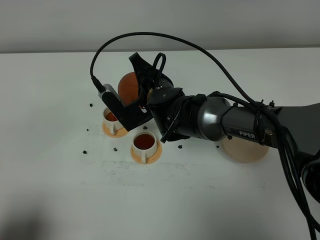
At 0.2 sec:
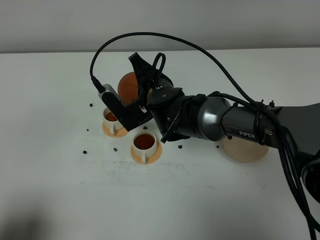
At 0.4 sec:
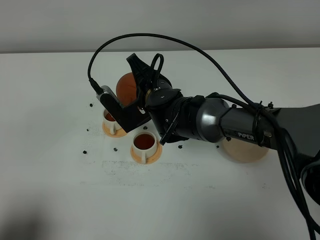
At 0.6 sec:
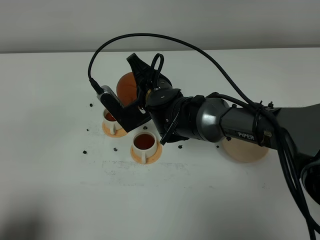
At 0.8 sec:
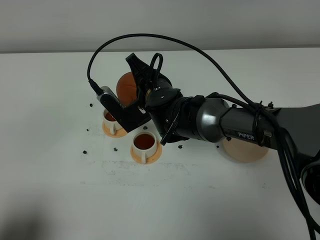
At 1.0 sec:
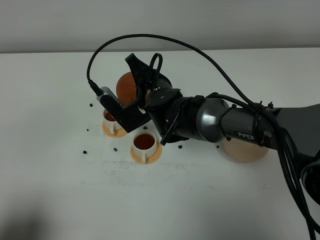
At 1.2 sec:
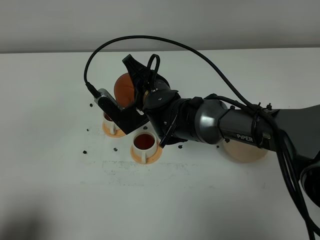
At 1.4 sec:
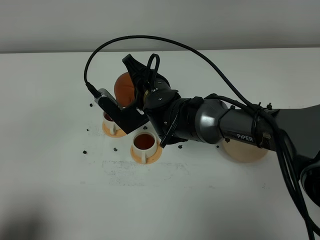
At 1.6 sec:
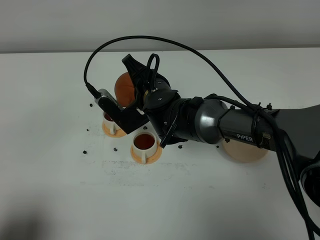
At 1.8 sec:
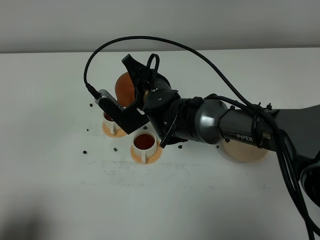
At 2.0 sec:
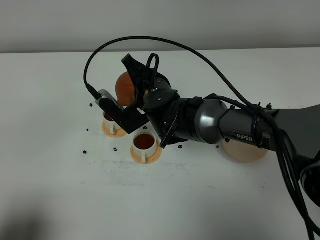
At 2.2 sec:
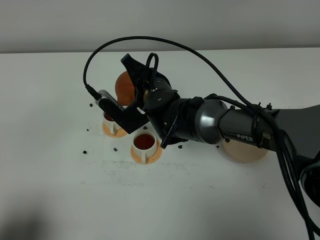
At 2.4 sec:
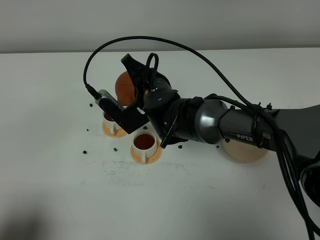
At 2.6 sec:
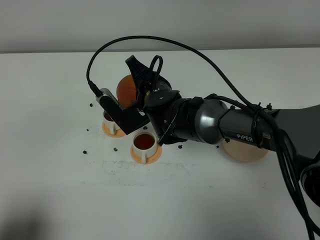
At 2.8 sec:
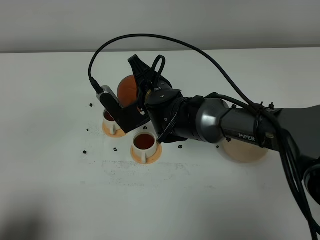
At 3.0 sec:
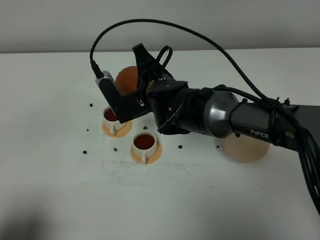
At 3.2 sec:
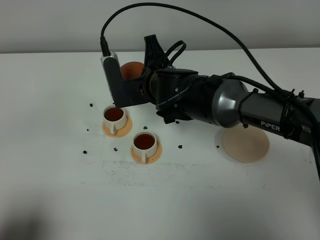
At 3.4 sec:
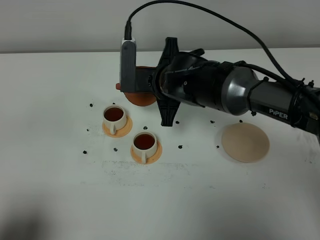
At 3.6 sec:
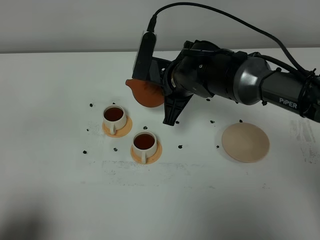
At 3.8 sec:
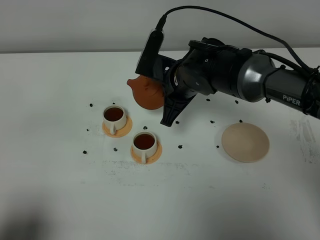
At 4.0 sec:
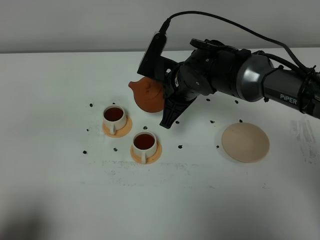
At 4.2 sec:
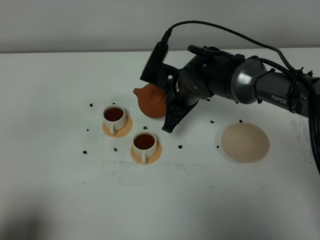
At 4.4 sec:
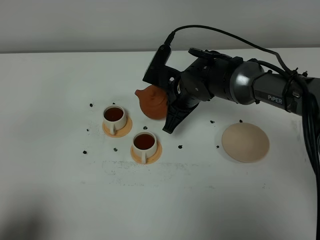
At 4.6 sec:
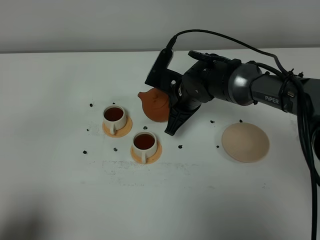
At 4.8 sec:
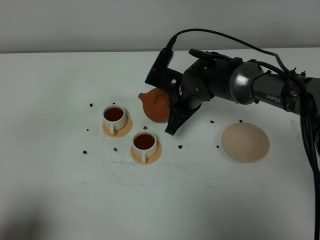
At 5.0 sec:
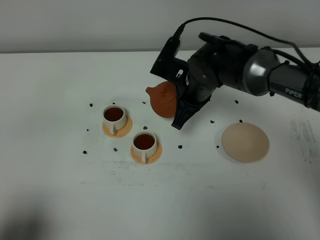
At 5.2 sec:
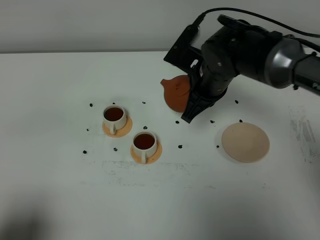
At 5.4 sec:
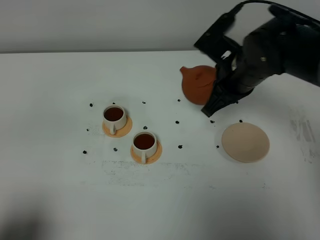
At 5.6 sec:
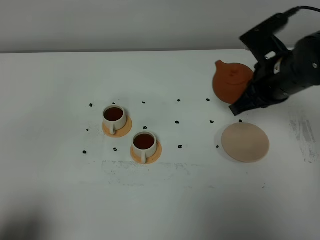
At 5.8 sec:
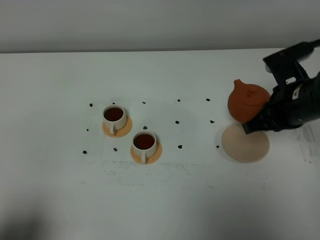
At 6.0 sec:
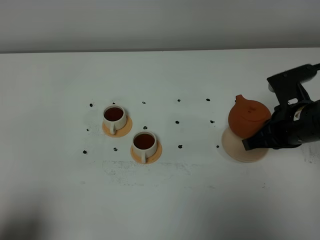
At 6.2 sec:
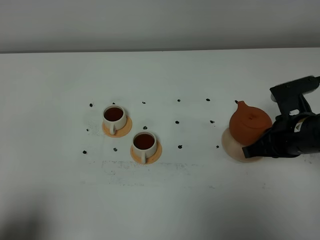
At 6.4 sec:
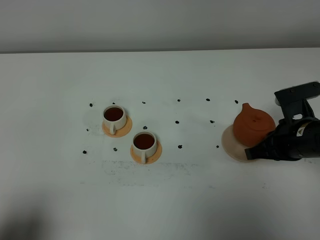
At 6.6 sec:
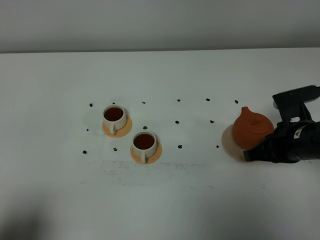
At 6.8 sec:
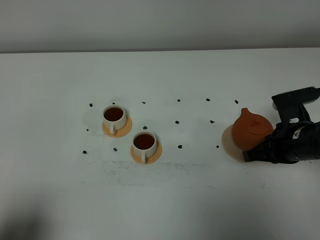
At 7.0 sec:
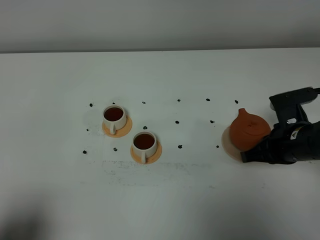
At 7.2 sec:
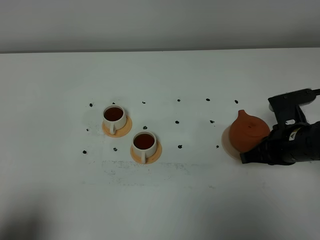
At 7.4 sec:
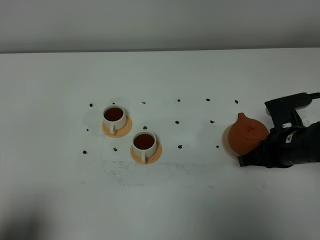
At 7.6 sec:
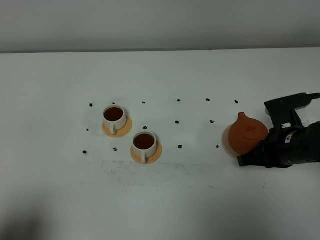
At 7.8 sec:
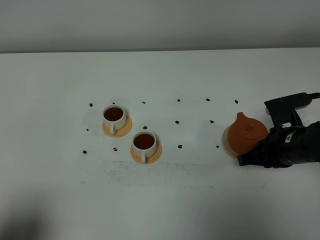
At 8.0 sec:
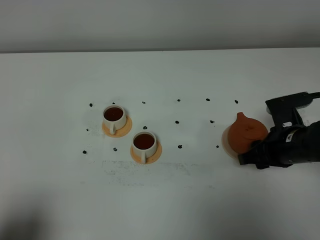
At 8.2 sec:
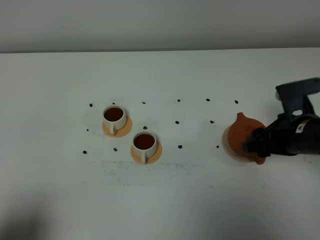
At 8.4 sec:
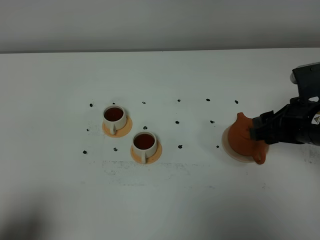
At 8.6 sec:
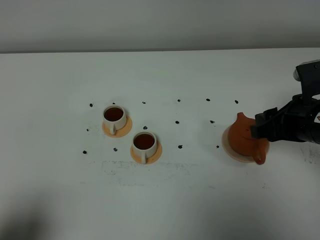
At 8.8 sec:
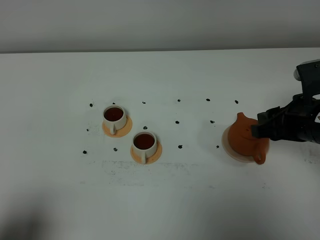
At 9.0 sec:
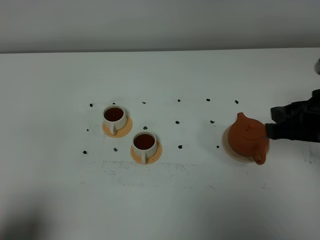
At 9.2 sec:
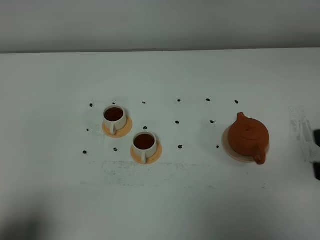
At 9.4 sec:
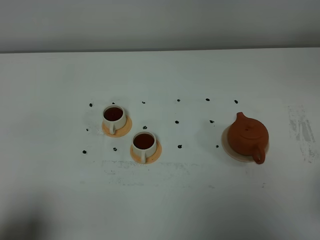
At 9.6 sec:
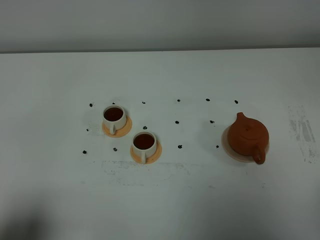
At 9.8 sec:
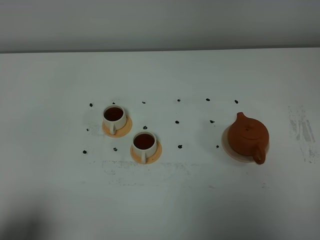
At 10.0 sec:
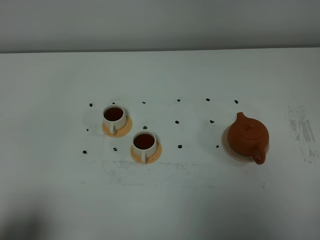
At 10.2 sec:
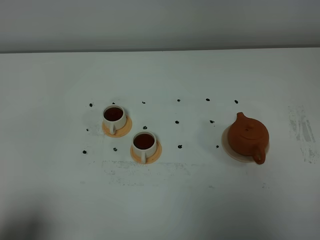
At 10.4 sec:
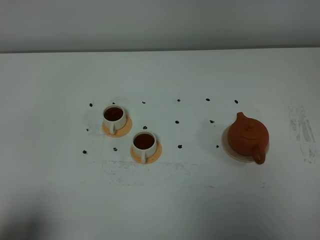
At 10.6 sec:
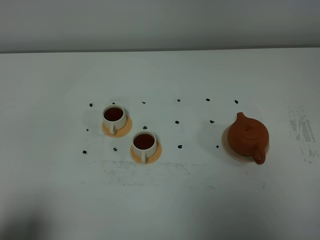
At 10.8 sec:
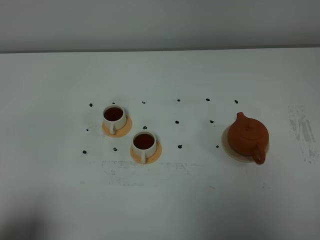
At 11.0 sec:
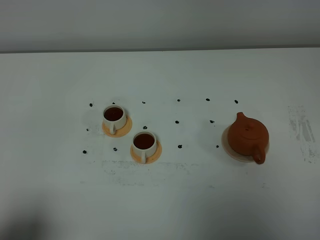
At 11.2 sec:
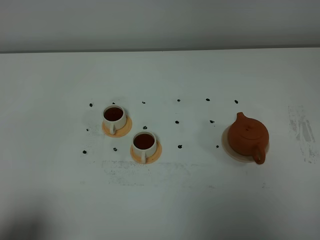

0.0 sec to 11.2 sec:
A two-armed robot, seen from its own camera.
Task of the whole recording: grasp the brown teapot and pour the tea into the two white teacups one by one, put the brown teapot back in its original place.
Step, 0.0 sec to 3.6 sec: Pour tea into the teacup with the right gripper.
0.0 sec to 1.6 sec: The grippers move only a little.
3.2 sec to 4.8 sec: The right gripper heads downward and to the right, covering about 10 cm.
4.8 sec to 6.4 sec: The right gripper is displaced to the right and backward by about 20 cm.
6.4 sec to 8.0 sec: The right gripper opens its fingers.
8.0 sec to 9.6 sec: The right gripper shifts some 30 cm backward and upward, and closes up.

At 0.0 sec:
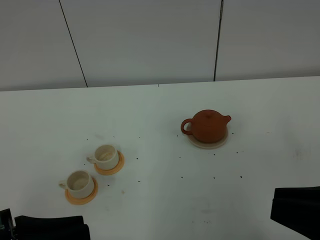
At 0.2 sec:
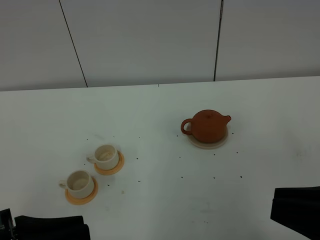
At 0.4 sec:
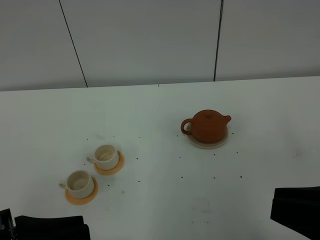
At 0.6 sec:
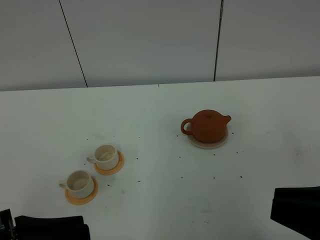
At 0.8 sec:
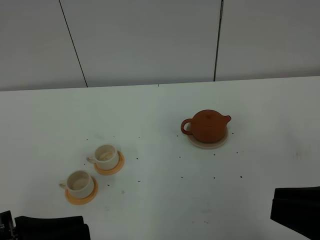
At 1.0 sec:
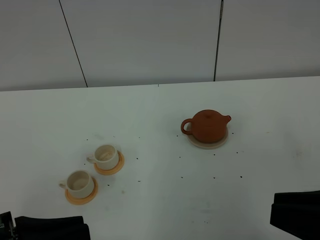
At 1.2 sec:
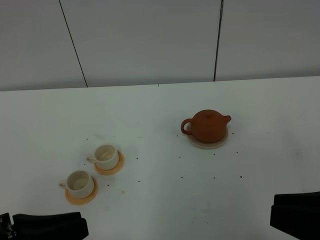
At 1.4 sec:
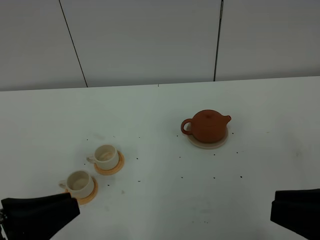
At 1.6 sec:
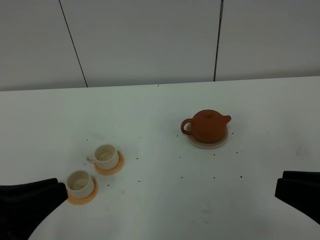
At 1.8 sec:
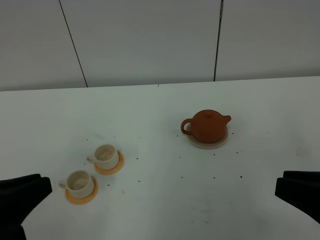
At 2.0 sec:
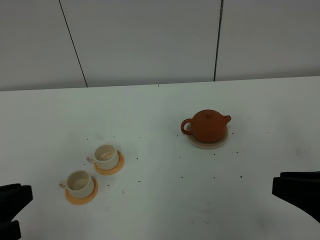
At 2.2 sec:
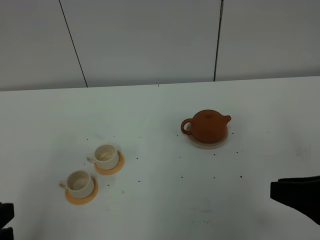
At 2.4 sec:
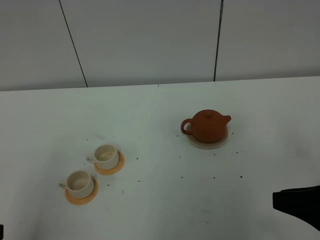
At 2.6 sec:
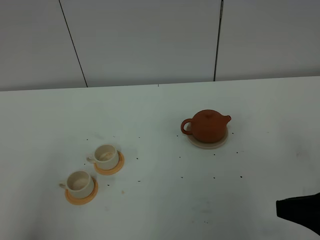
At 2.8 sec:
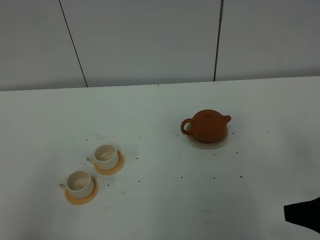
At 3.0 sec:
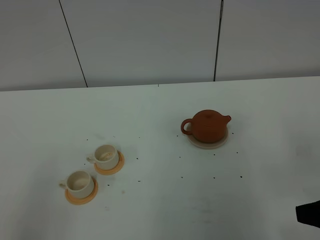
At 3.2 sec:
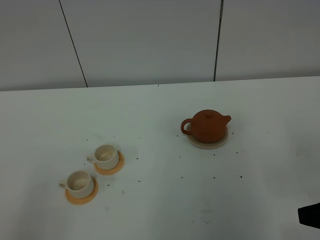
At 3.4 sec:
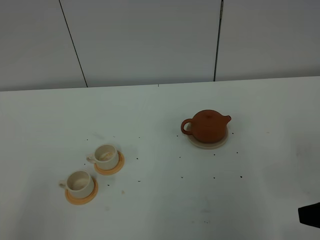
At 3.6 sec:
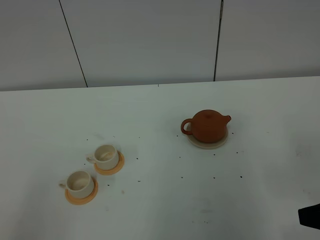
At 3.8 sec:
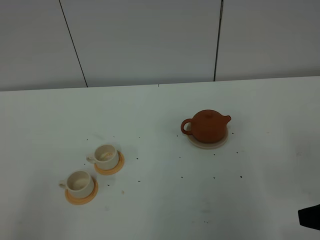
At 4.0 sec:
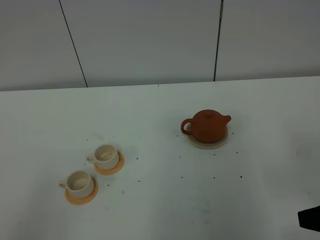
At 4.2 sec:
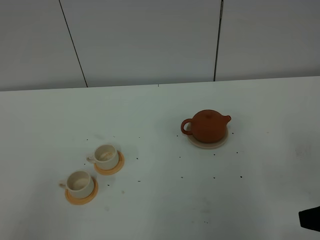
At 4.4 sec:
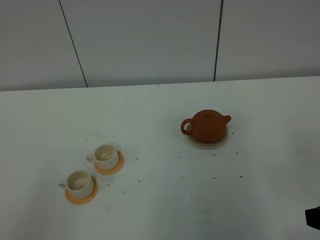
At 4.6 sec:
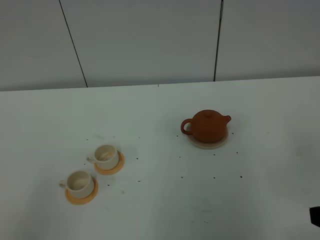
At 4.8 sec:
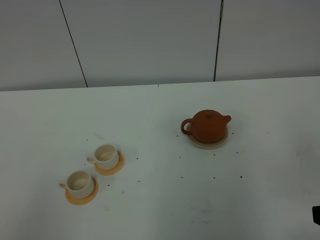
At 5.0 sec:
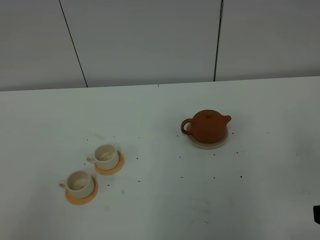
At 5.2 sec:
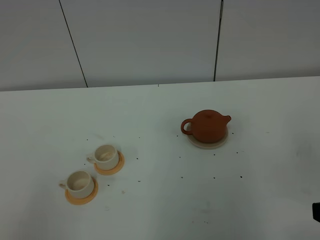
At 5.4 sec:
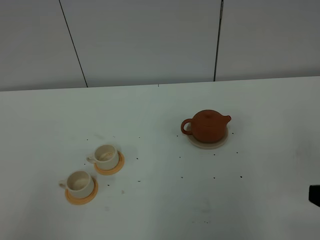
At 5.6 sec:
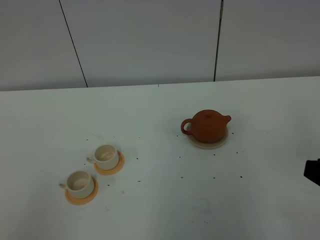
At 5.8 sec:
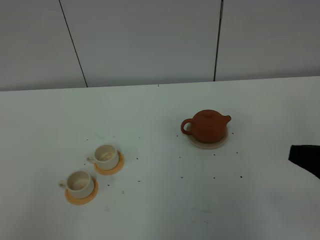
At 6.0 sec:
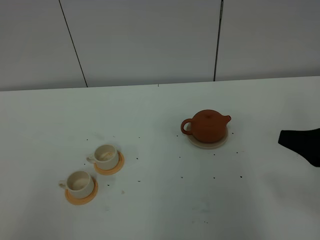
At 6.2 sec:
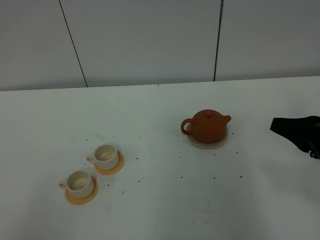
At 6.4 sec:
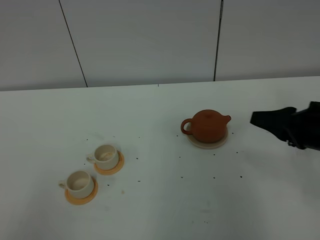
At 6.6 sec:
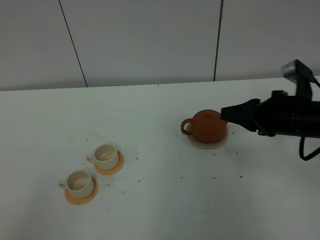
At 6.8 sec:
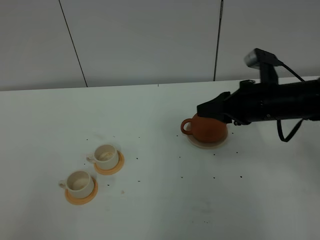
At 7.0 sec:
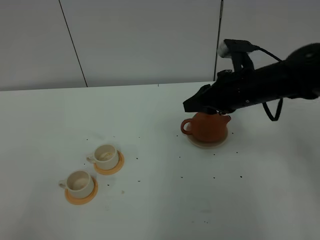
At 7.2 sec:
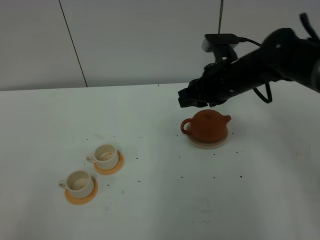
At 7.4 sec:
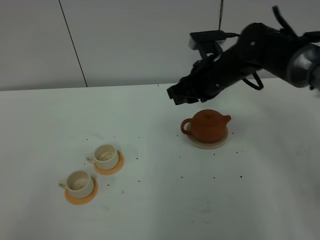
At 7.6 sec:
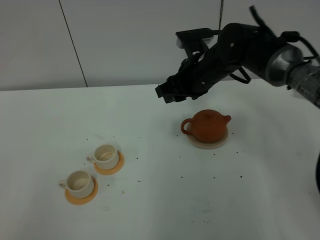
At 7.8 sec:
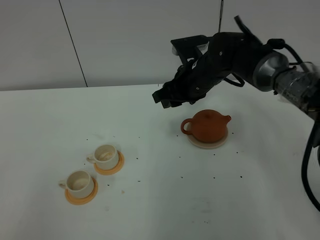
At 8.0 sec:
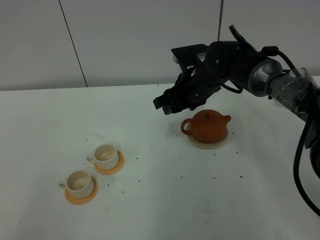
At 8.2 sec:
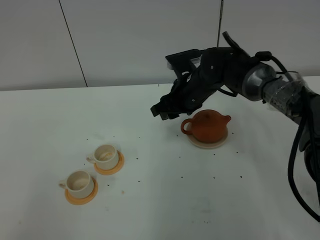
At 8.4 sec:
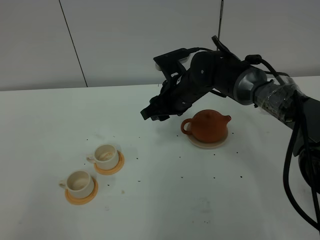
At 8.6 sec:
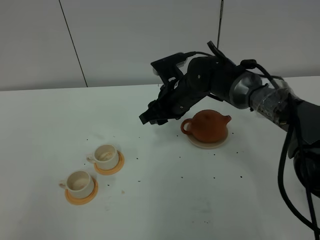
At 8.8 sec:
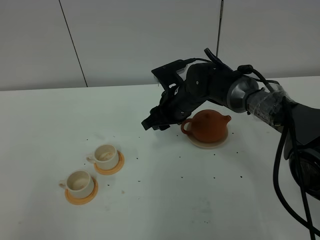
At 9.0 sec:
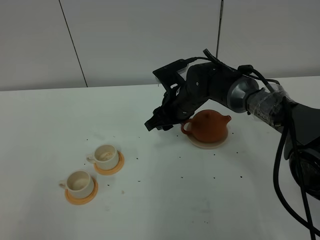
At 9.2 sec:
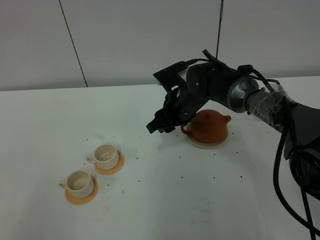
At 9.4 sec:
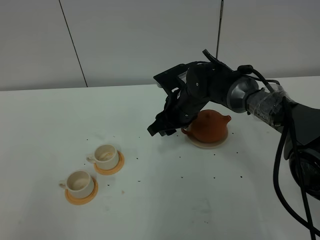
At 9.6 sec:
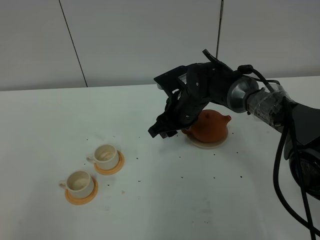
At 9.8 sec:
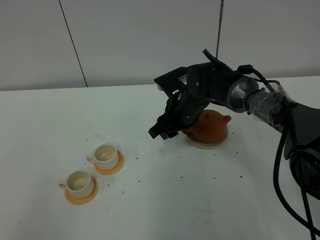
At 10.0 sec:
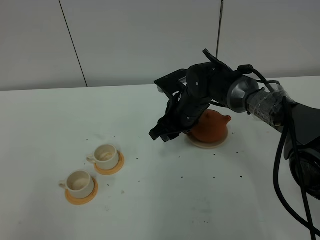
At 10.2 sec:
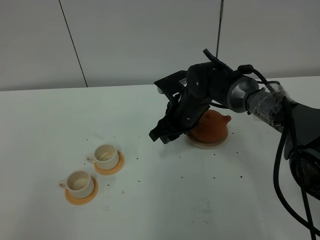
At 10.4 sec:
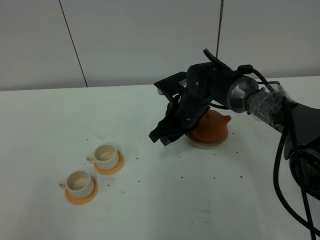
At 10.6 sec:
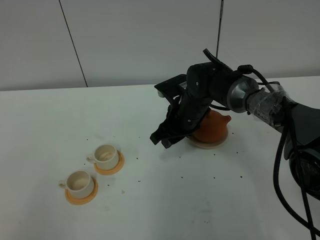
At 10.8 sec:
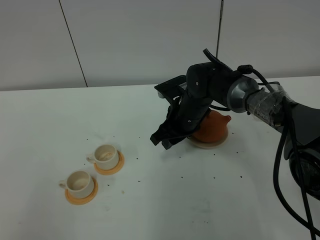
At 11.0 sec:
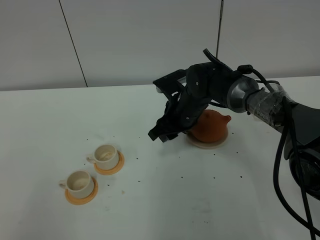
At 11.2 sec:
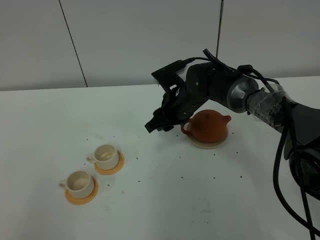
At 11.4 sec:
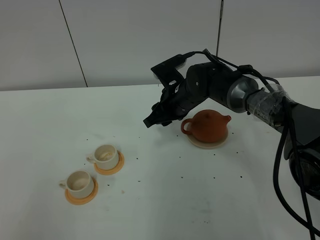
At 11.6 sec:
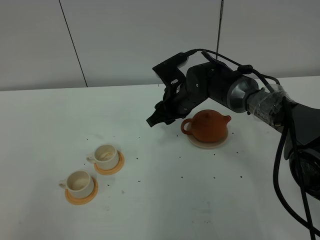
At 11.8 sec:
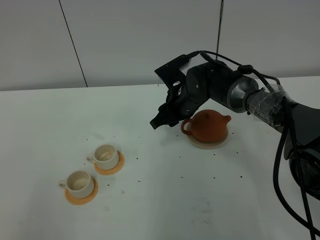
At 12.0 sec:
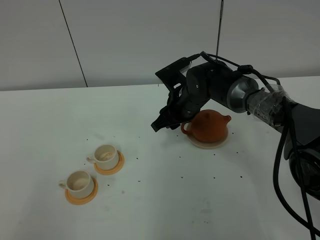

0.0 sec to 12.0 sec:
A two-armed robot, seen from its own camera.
Task of the whole recording: grasp the brown teapot and pour the tea into the two white teacups one by one, put the brown teapot back in its original place.
0.0 sec to 1.6 sec: The grippers make only small movements.
1.6 sec to 3.0 sec: The right gripper ends up roughly 5 cm from where it was. Meanwhile the left gripper shifts about 10 cm backward and to the left.
4.4 sec to 6.0 sec: The right gripper heads forward, covering some 10 cm.
6.0 sec to 7.6 sec: The right gripper shifts some 30 cm forward and to the left, and opens its fingers.
7.6 sec to 9.0 sec: The right gripper goes some 10 cm downward.
9.0 sec to 12.0 sec: The grippers move only a little.
